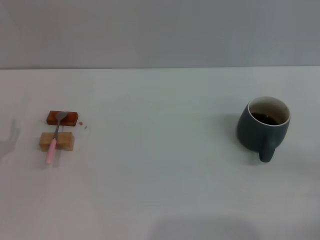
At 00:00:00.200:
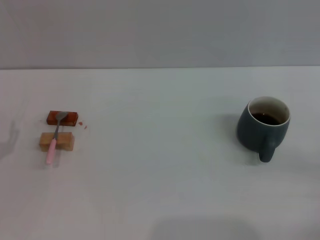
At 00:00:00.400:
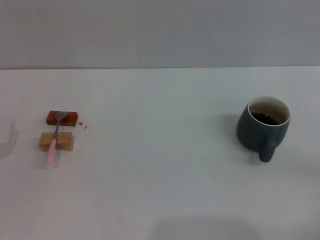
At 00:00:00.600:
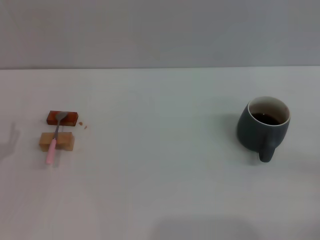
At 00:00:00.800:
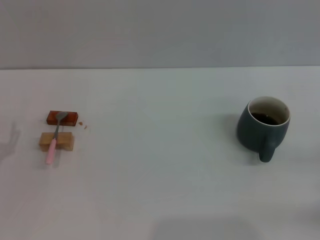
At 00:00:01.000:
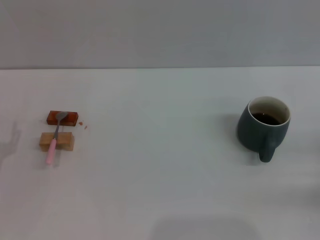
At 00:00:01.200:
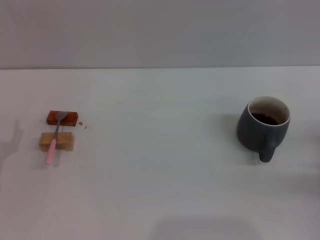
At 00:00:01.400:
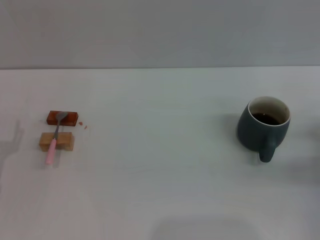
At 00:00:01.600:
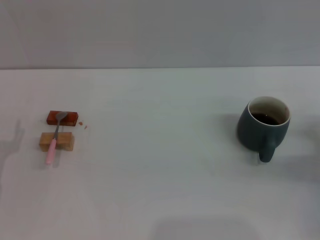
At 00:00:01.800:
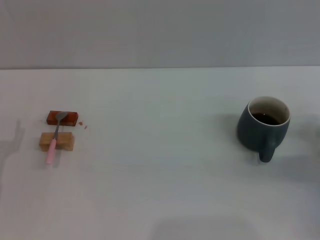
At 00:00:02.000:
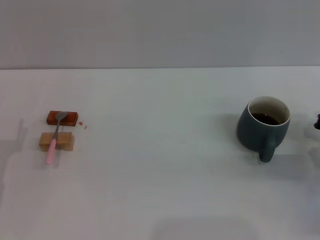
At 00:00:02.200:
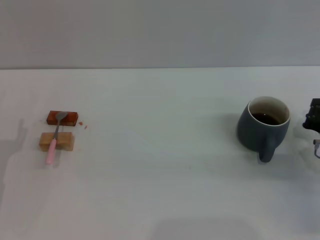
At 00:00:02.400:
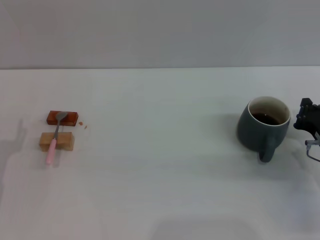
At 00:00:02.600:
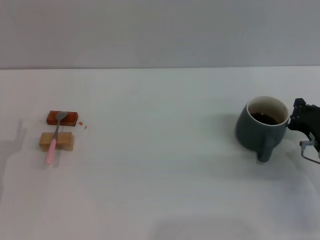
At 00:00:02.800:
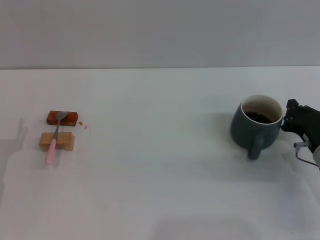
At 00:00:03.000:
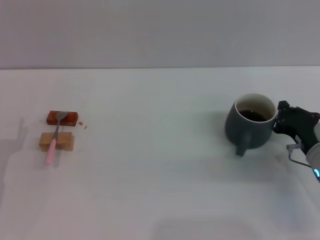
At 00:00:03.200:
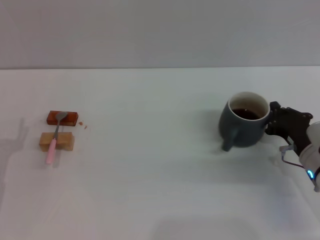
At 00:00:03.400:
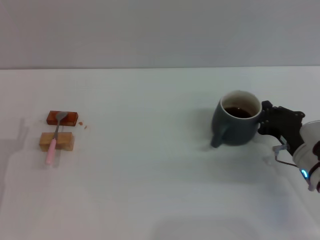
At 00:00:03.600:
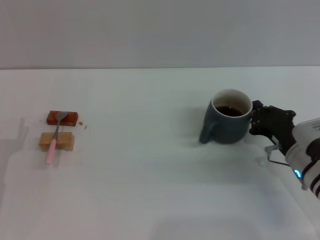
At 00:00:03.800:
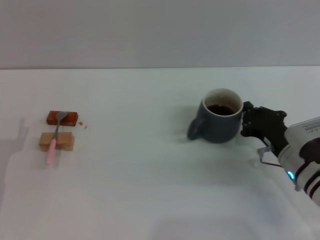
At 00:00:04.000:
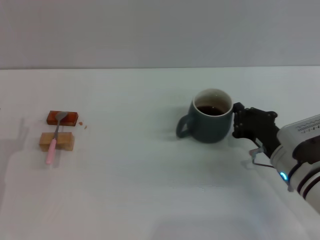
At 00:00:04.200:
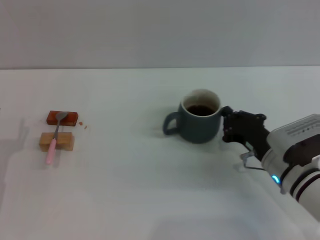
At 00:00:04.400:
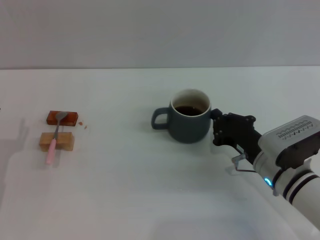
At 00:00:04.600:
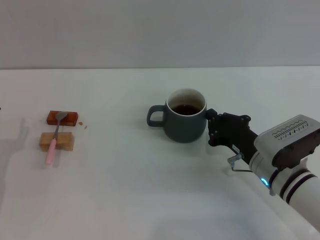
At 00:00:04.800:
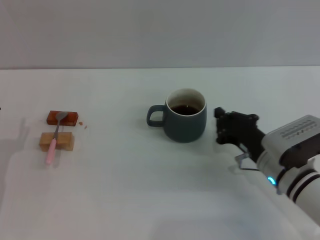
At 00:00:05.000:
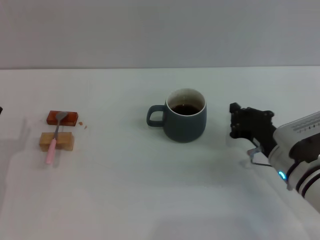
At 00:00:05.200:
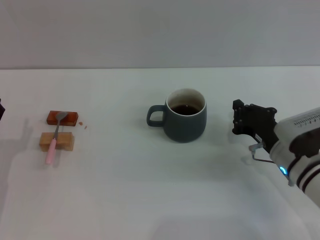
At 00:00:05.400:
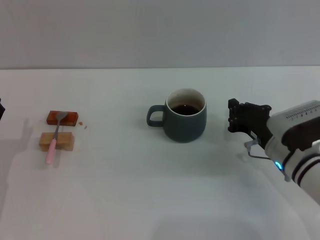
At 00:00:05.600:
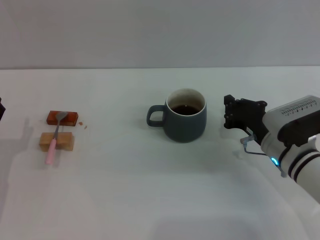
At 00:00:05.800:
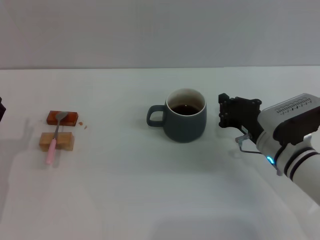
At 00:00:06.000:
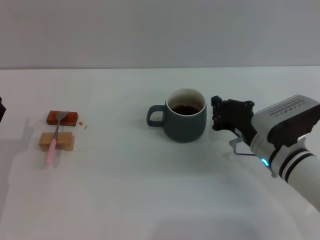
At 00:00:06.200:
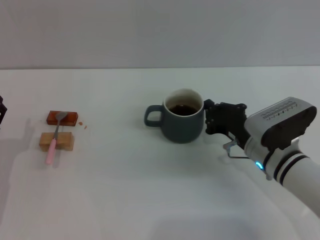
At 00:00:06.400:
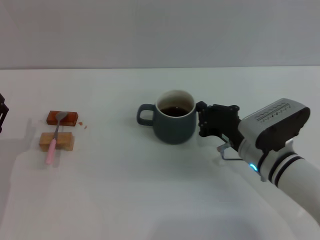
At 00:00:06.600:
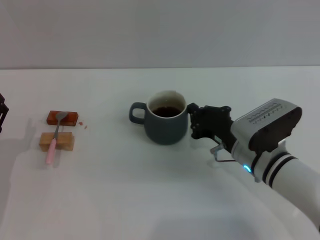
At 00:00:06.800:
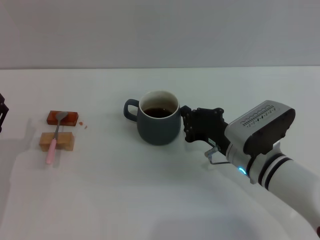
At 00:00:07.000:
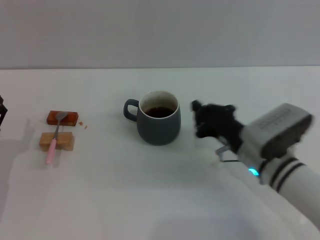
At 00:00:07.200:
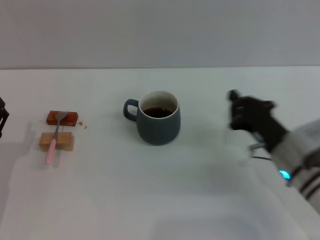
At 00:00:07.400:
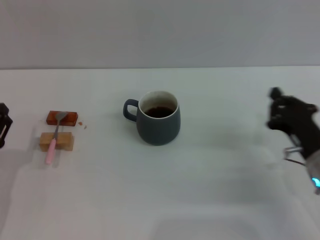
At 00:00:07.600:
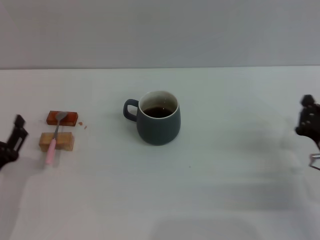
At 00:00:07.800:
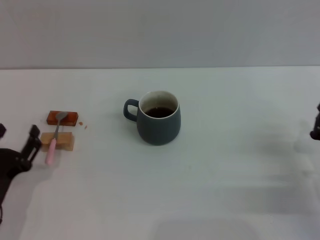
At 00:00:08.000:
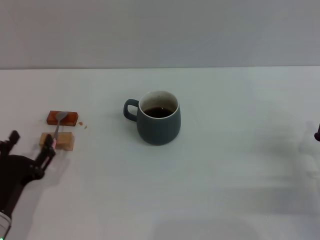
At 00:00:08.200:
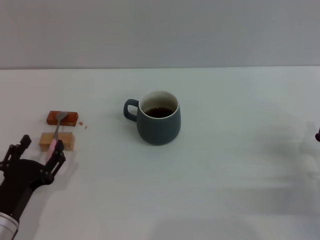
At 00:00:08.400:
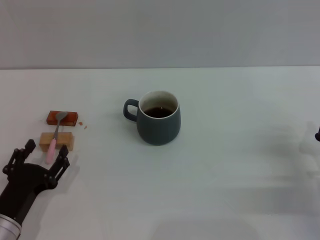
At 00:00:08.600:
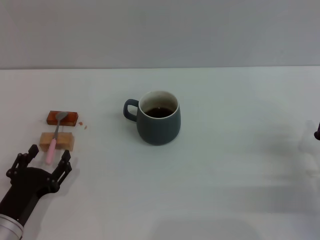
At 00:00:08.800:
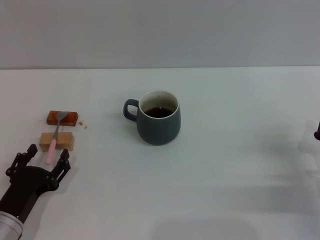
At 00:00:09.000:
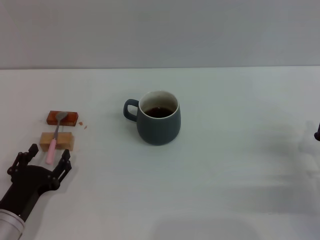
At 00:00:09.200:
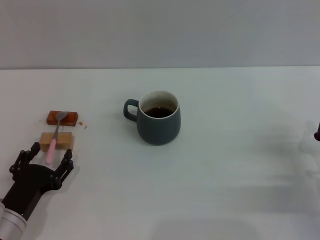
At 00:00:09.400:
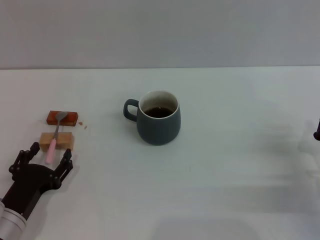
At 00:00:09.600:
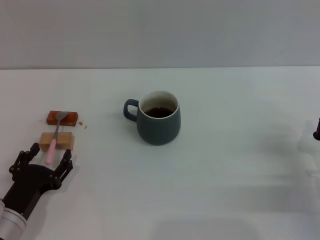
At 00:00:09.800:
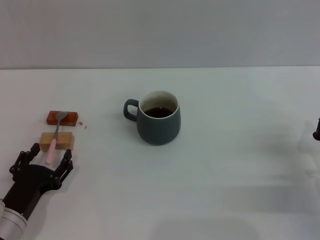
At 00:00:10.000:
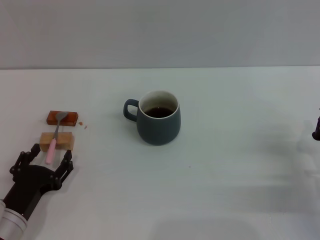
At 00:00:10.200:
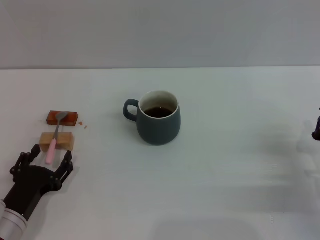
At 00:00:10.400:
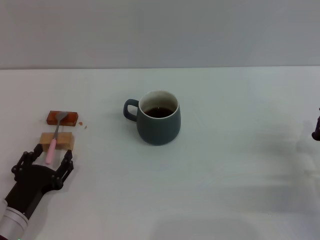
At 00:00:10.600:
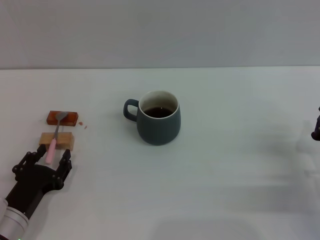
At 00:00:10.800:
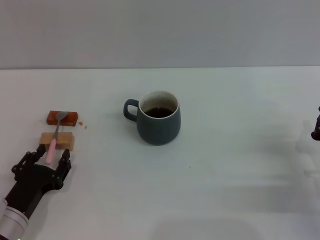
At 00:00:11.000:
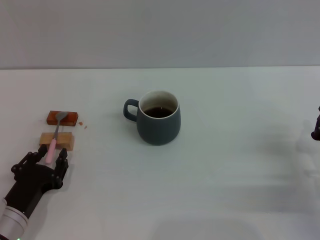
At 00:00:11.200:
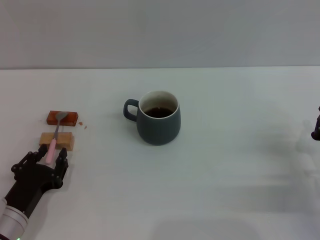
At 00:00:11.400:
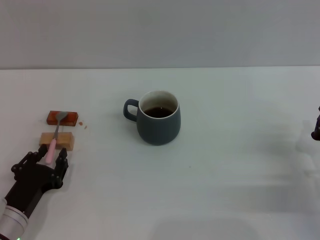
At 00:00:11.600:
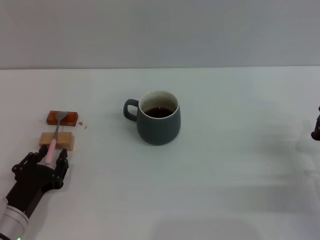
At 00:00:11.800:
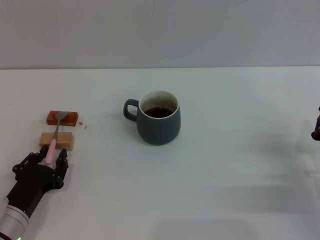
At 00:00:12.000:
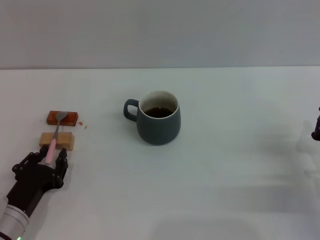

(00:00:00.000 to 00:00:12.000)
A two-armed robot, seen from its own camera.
Task of the whole recording: Move the grey cup to the center, lift the pink spoon, stir it three times in the cup, and put the spoon into the cup.
Step, 00:00:00.000 - 00:00:07.000: Move the cup with coffee to the center of view with the right gripper.
00:00:00.000 - 00:00:01.600: The right gripper shifts some 10 cm forward.
00:00:01.600 - 00:00:03.000: The right gripper is displaced to the left by roughly 5 cm.
00:00:03.000 - 00:00:04.400: The right gripper goes about 10 cm to the left.
00:00:04.400 - 00:00:06.000: The grippers make only small movements.
00:00:06.000 - 00:00:07.600: The right gripper goes roughly 10 cm to the right and backward.
00:00:07.600 - 00:00:09.000: The grippers make only small movements.
00:00:09.000 - 00:00:10.400: Neither gripper changes place.
00:00:10.400 - 00:00:12.000: The left gripper closes its fingers.

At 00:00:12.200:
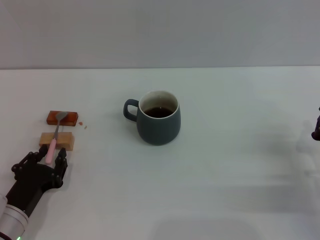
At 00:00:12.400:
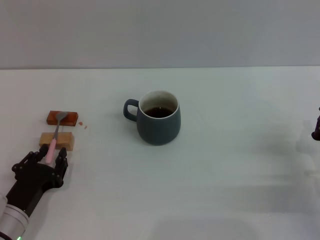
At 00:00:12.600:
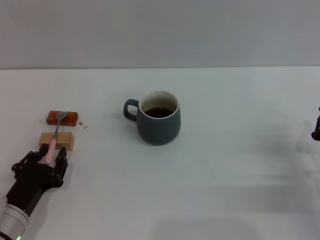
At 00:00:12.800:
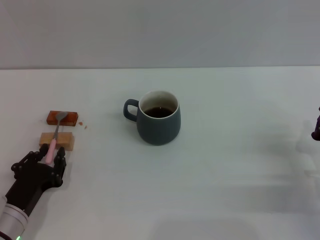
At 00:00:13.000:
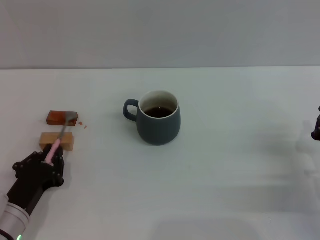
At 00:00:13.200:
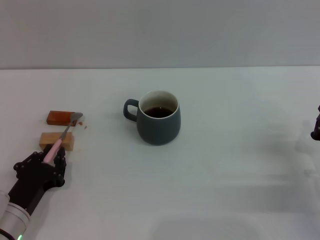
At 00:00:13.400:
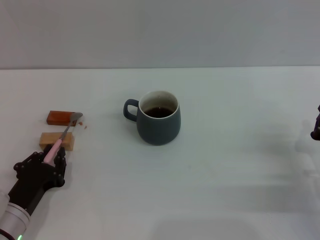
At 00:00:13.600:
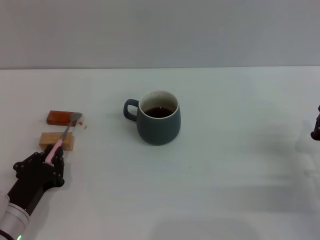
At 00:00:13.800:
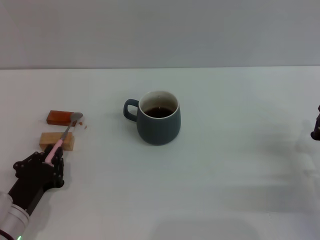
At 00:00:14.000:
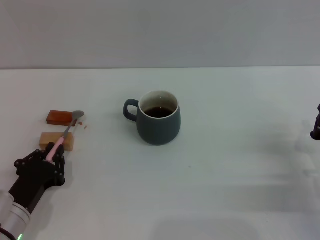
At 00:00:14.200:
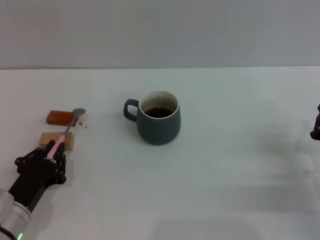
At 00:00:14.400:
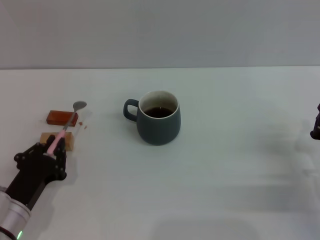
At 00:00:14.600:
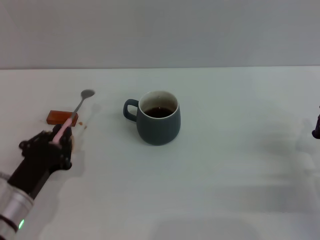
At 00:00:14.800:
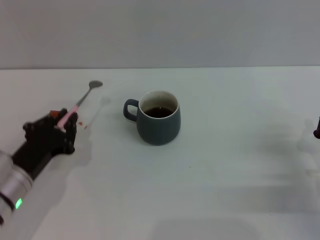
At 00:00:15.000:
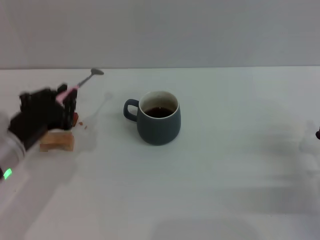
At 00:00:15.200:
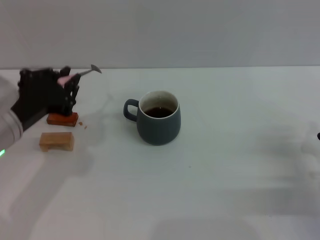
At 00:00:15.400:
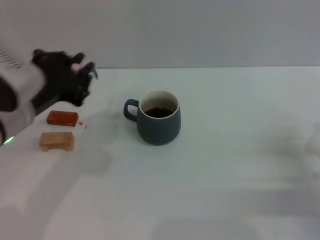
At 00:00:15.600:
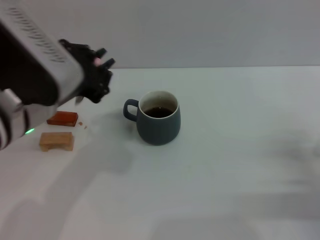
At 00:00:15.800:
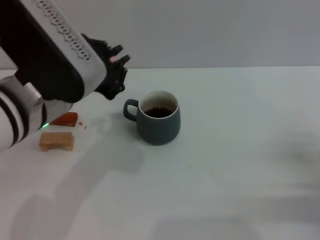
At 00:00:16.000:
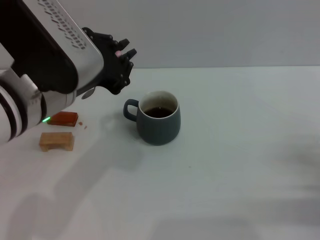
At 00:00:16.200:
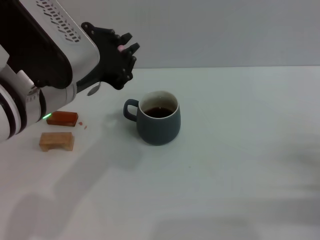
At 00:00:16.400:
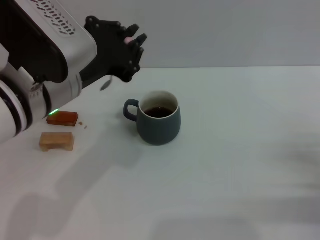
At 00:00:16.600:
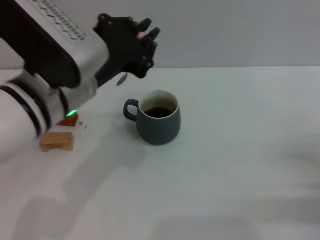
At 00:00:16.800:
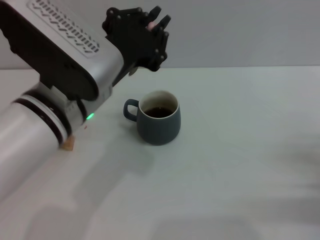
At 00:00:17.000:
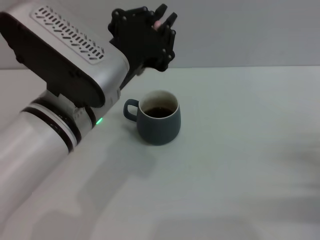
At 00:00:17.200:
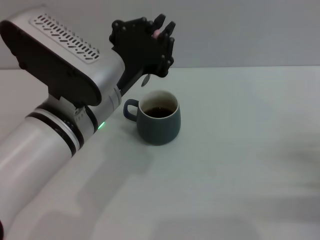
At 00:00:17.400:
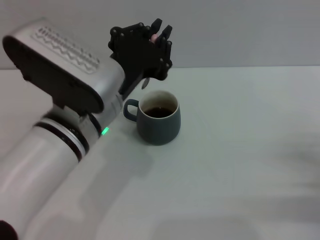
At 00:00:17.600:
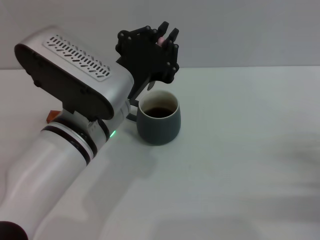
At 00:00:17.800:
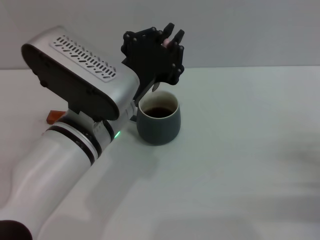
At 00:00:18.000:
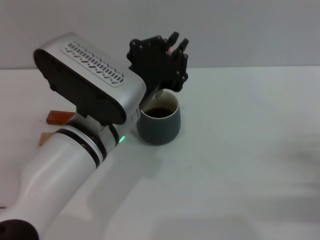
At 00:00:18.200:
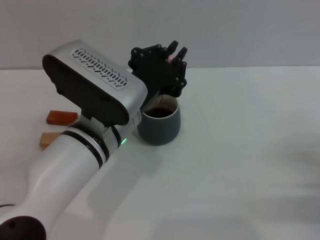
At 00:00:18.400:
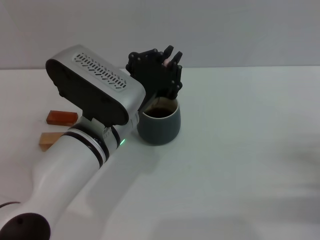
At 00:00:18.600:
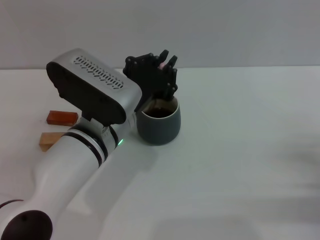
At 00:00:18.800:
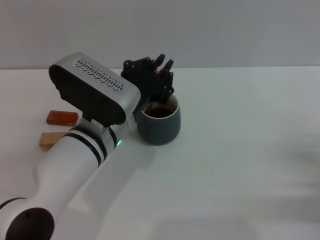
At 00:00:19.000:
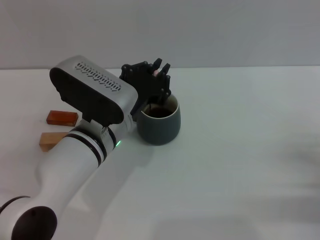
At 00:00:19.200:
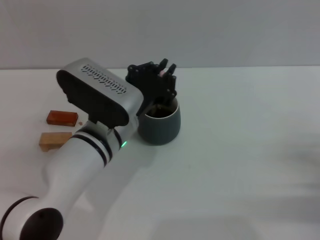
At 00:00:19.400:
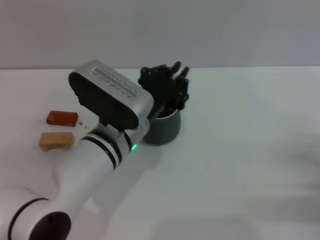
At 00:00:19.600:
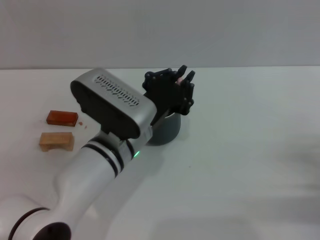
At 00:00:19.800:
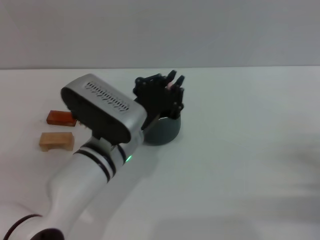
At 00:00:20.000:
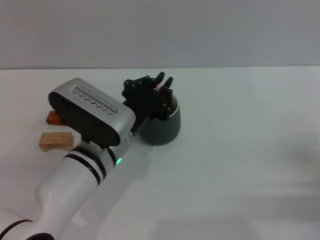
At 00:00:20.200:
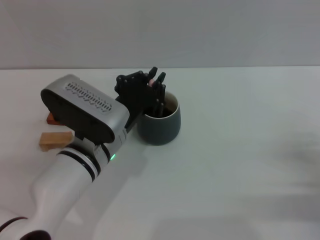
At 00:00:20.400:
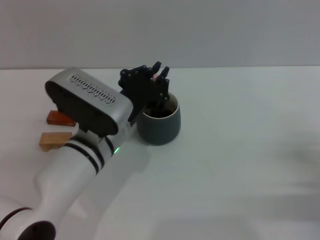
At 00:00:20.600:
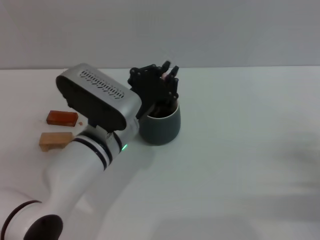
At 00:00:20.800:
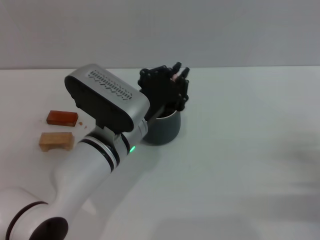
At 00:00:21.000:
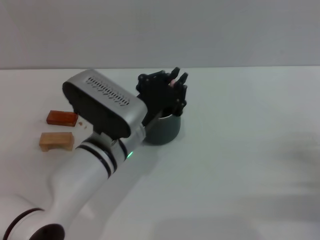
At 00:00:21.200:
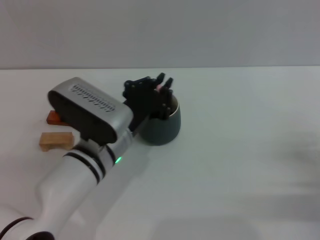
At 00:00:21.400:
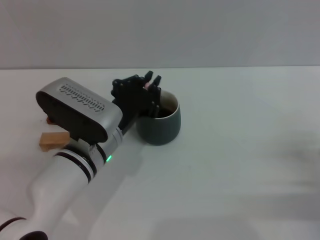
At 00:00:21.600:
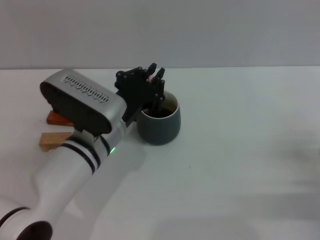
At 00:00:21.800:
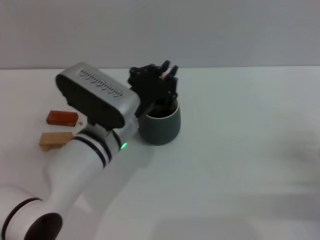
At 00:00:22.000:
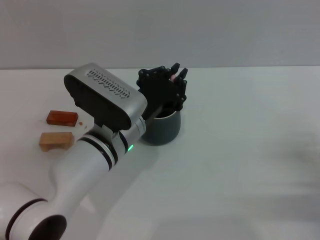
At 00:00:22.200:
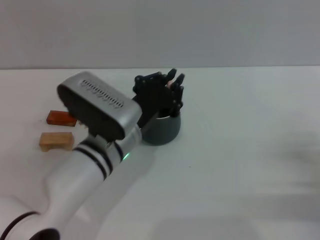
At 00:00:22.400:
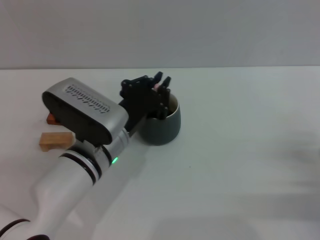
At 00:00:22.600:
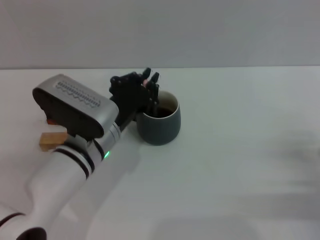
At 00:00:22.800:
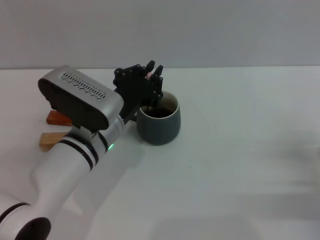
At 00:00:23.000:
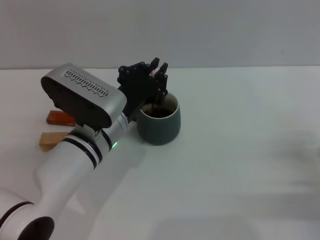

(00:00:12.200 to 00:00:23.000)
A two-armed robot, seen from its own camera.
Task of the whole recording: Move the grey cup to the center, lift the pink spoon, stir it three times in the cup, and put the spoon into the cup.
Step, 00:00:12.200 - 00:00:14.800: Pick up the spoon with the left gripper.
00:00:12.200 - 00:00:13.800: Both grippers stay put.
00:00:13.800 - 00:00:15.200: The left gripper heads upward, covering roughly 20 cm.
00:00:15.200 - 00:00:16.800: The left gripper is displaced to the right by some 10 cm.
00:00:16.800 - 00:00:18.400: The left gripper shifts roughly 5 cm downward.
00:00:18.400 - 00:00:23.000: The grippers stay close to where they were, moving slightly.
